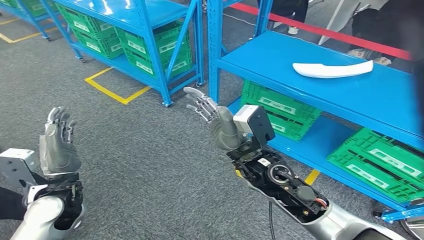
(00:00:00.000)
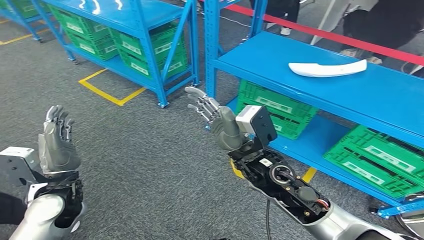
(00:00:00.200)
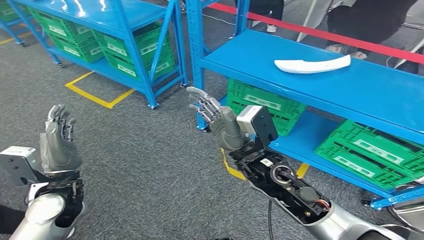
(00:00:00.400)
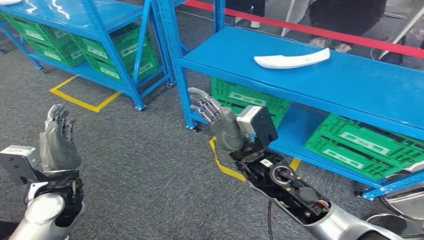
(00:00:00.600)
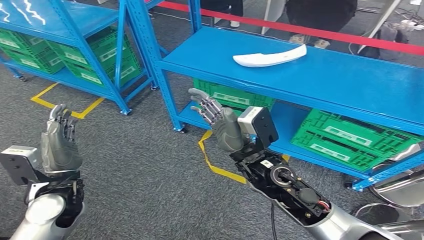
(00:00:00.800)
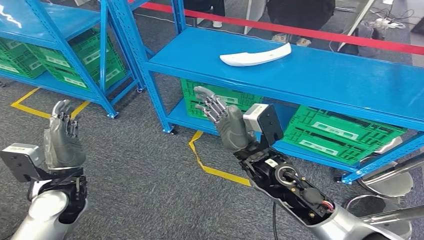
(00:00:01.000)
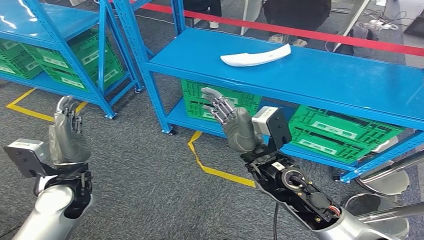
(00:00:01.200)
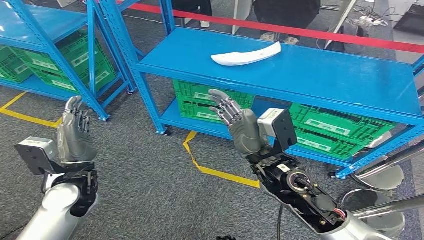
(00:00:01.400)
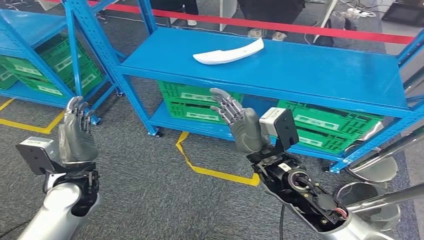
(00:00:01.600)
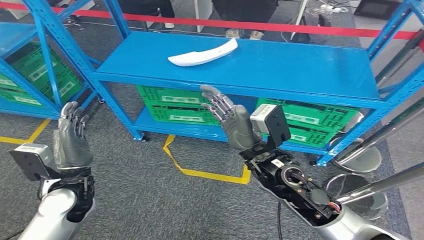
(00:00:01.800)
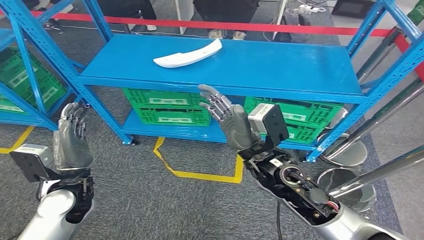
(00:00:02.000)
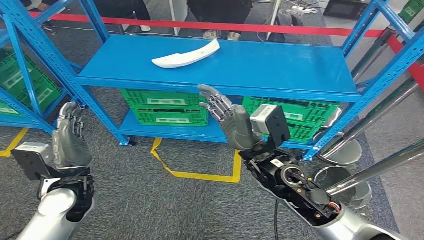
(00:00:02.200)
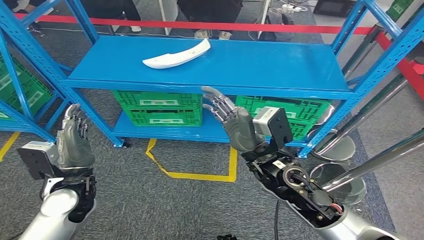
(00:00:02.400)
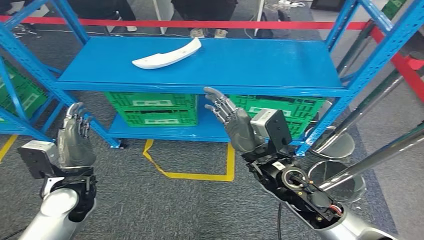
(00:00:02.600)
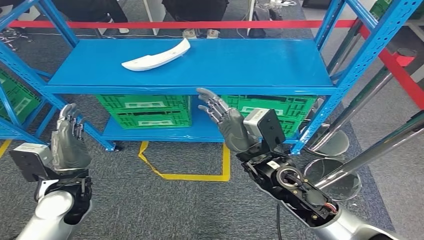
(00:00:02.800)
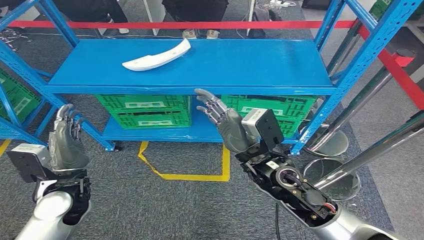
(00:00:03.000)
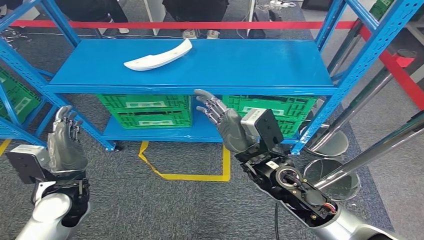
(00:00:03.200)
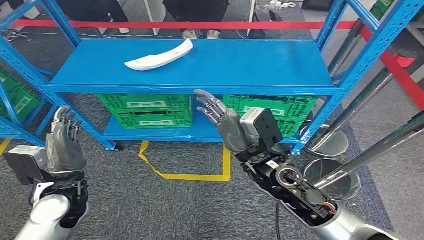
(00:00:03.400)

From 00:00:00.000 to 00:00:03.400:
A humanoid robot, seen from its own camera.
Step, from 00:00:00.000 to 00:00:03.200: Return to the initial position at the workbench.
